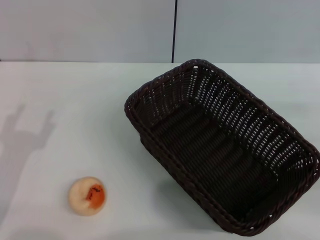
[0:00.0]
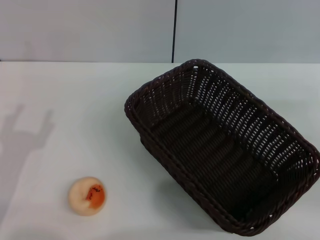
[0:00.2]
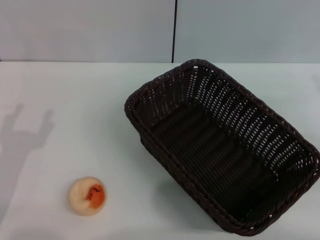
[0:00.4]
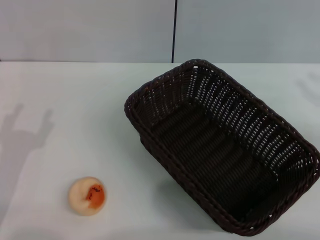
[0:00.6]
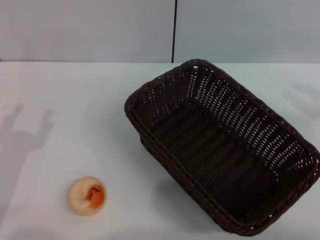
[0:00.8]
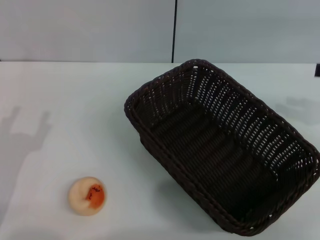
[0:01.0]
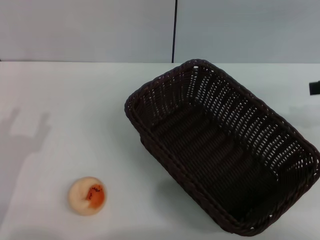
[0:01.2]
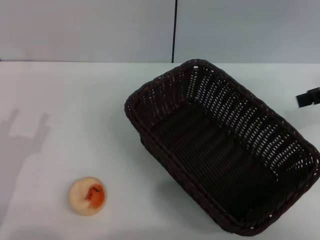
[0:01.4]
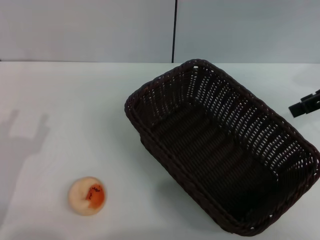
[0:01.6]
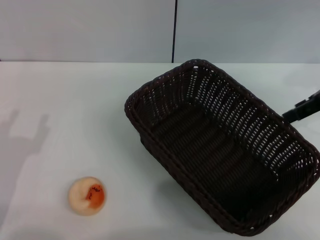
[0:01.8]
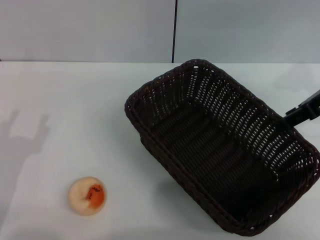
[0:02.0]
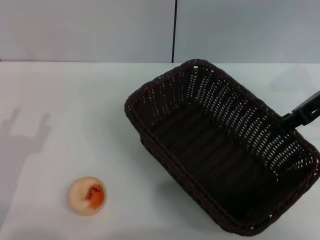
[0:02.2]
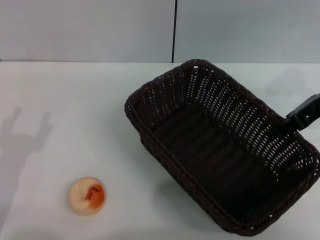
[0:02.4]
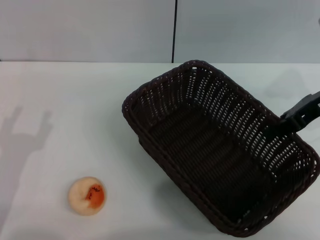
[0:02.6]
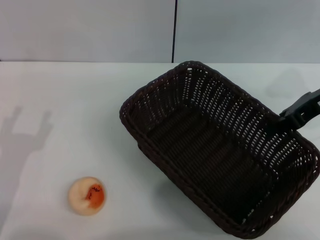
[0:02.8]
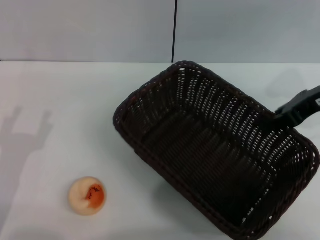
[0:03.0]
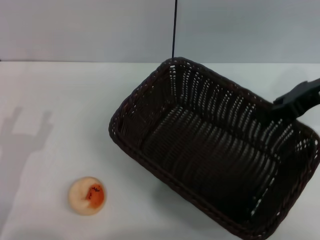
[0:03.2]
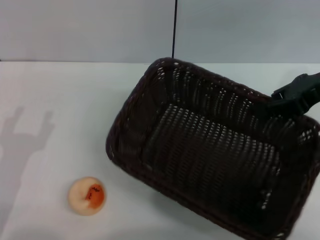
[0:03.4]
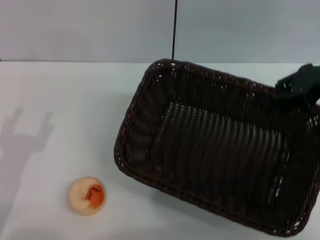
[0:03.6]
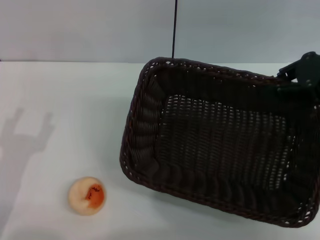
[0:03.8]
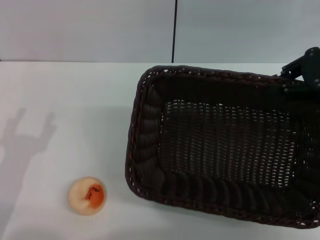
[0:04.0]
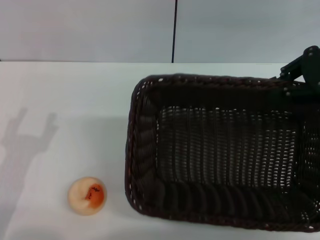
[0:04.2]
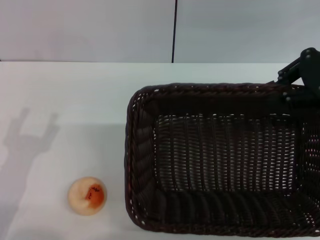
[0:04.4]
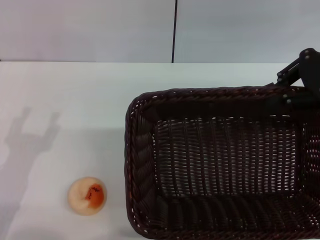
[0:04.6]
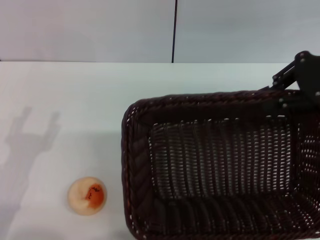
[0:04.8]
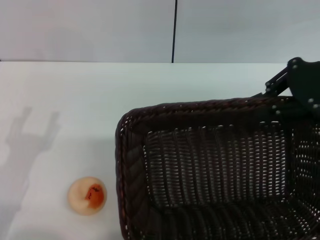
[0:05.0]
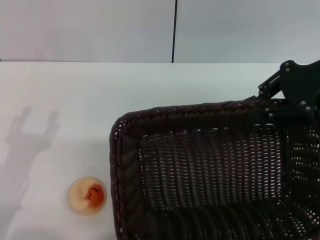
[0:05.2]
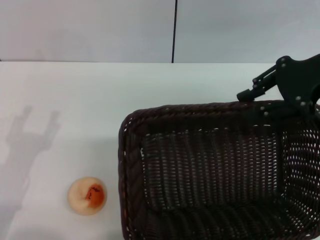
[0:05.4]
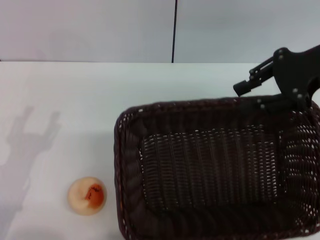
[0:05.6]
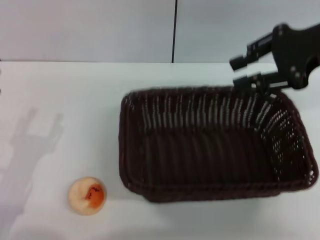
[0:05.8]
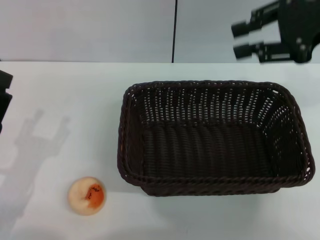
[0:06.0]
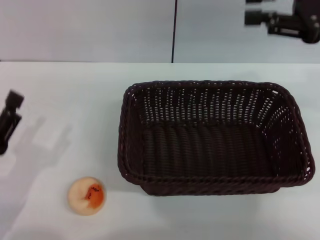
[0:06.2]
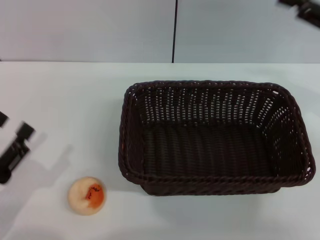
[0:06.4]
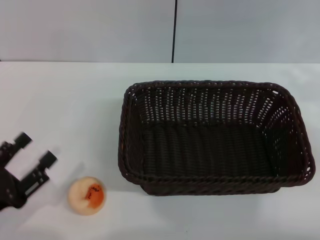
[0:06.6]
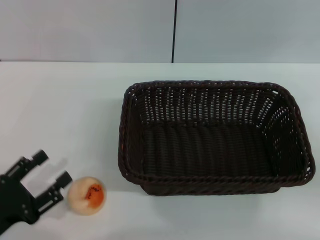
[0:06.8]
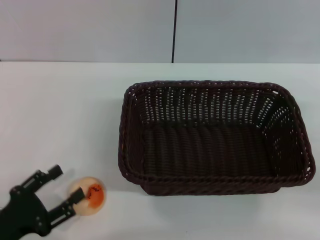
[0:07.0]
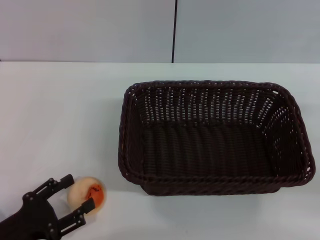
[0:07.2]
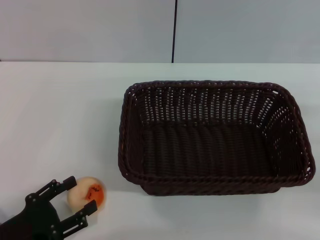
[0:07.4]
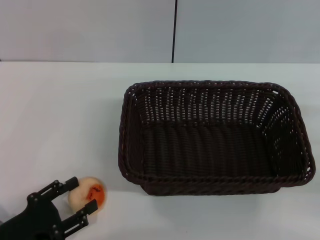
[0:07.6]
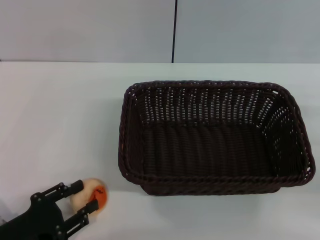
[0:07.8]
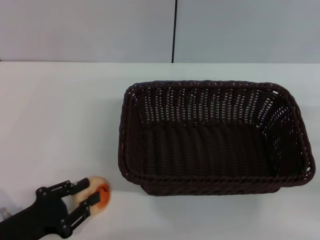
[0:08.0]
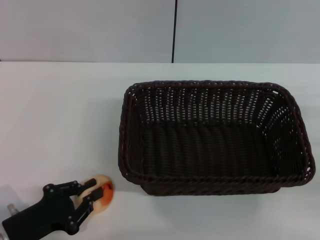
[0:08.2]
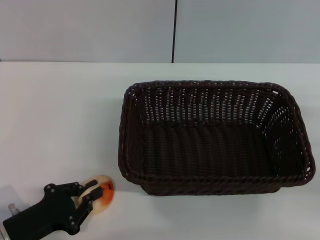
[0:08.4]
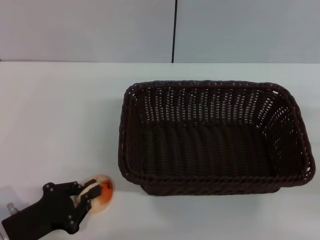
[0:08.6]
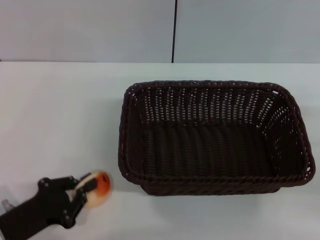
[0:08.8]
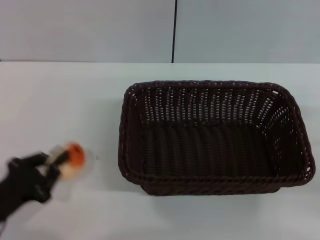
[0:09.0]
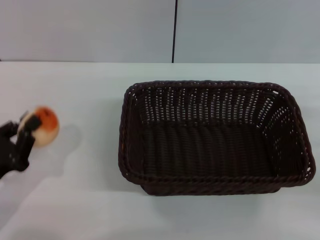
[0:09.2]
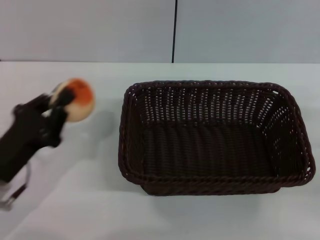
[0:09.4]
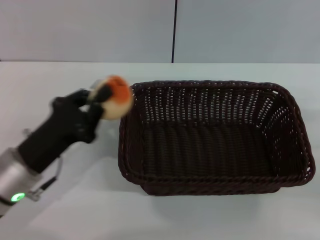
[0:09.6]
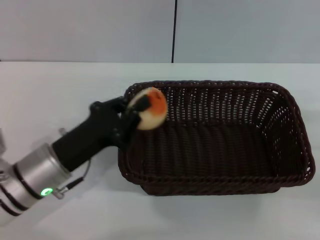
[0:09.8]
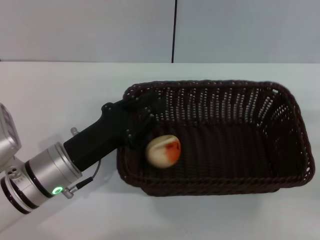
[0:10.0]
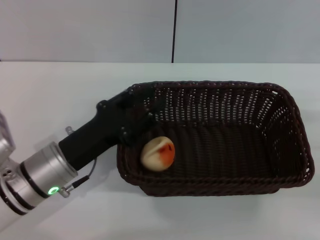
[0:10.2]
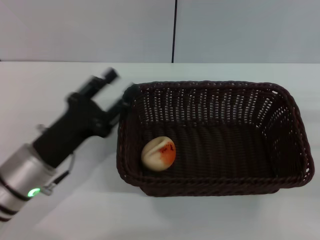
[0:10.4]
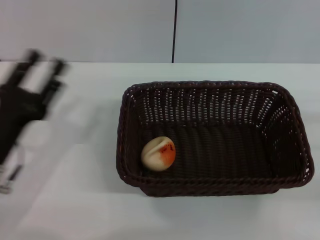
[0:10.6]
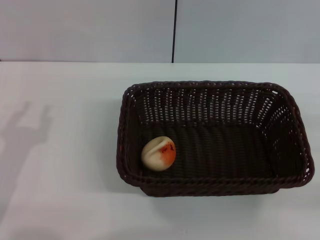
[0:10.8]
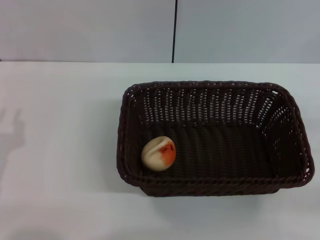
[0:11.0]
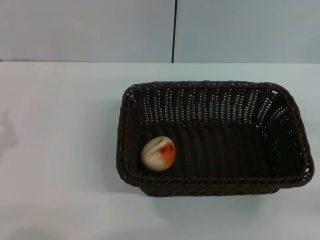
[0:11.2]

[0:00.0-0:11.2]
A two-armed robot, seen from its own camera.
Step, 0:00.0 to 0:05.8: Move the basket to the center of view with the right gripper.
Step, 0:06.0 to 0:08.8: Pick up the egg yolk pastry with the left gripper.
Step, 0:09.0 to 0:10.2: Place the egg yolk pastry into the basket with the left gripper.
0:00.0 to 0:01.6: The right gripper goes about 20 cm upward, forward and to the left.
0:01.6 to 0:03.2: The right gripper moves roughly 5 cm, and closes.
0:04.8 to 0:06.4: The right gripper ends up approximately 5 cm from where it was.
0:06.4 to 0:08.0: The right gripper is displaced downward, backward and to the right by roughly 15 cm.
0:08.0 to 0:09.6: The left gripper shifts approximately 10 cm forward, to the right and upward, and closes.
0:09.6 to 0:11.2: The left gripper shifts roughly 10 cm to the left and backward, and opens, then closes once more.
